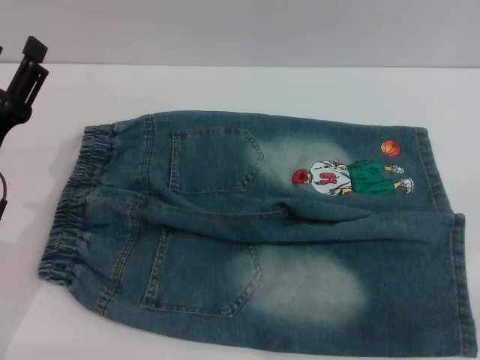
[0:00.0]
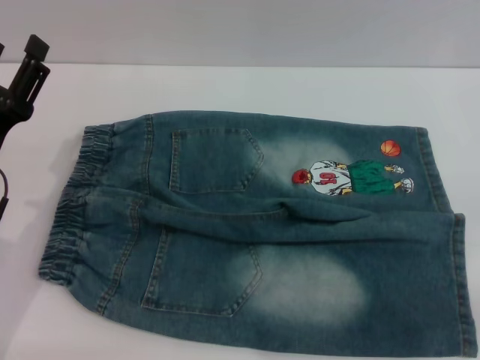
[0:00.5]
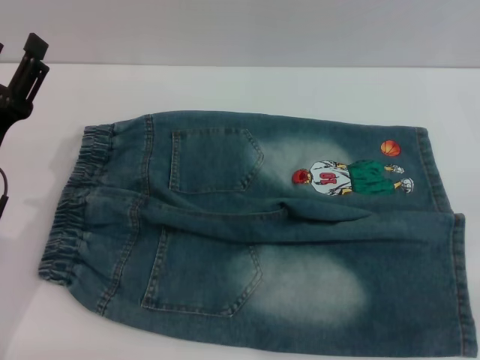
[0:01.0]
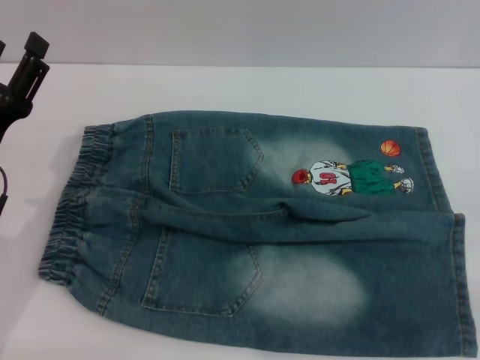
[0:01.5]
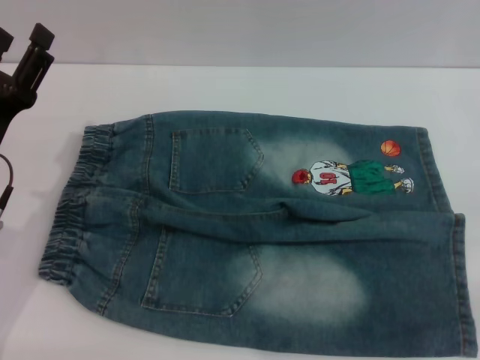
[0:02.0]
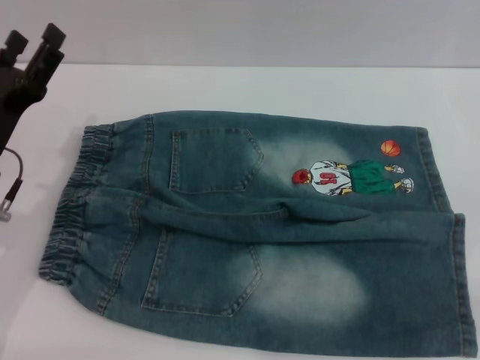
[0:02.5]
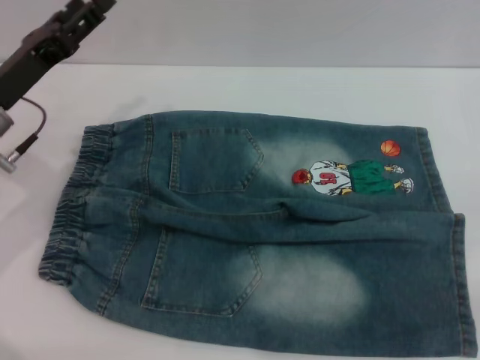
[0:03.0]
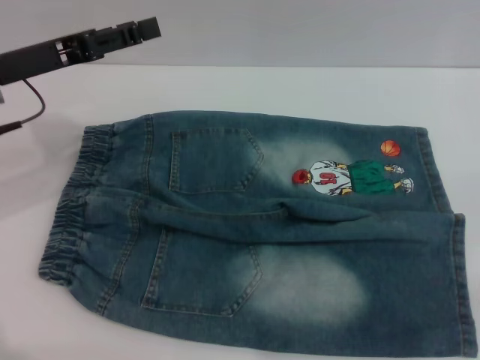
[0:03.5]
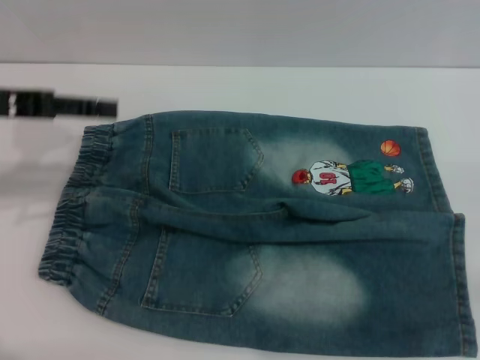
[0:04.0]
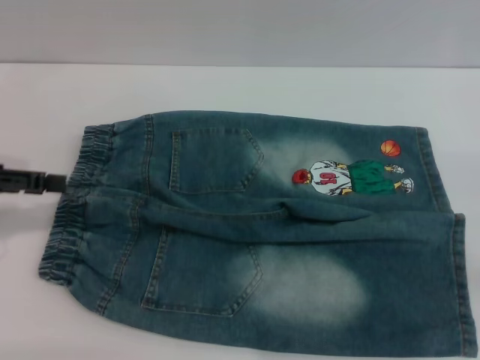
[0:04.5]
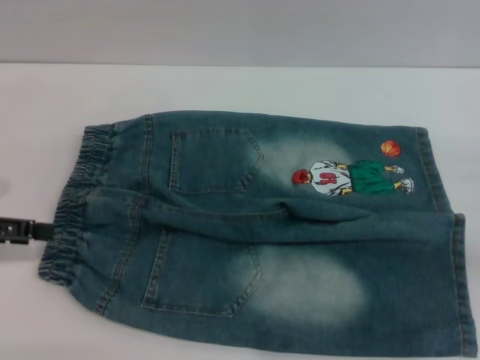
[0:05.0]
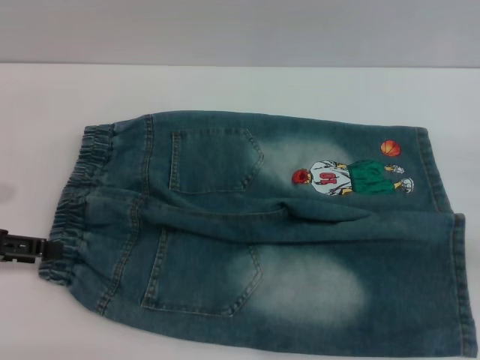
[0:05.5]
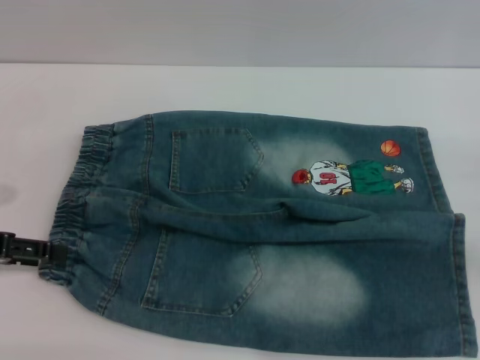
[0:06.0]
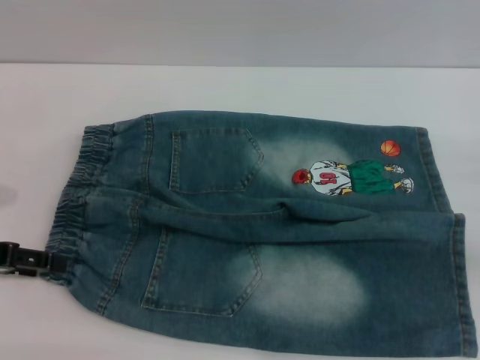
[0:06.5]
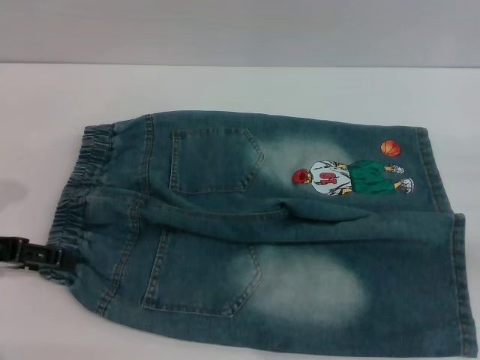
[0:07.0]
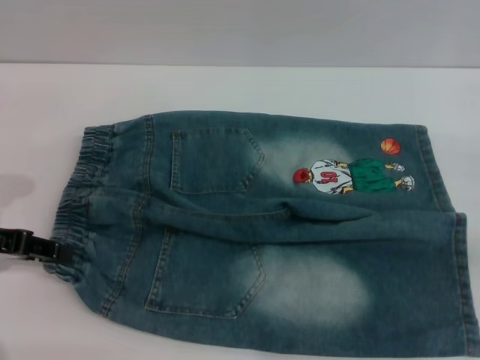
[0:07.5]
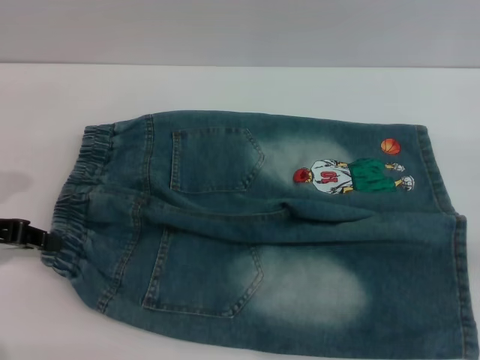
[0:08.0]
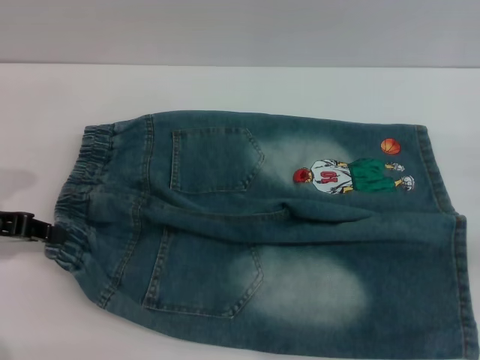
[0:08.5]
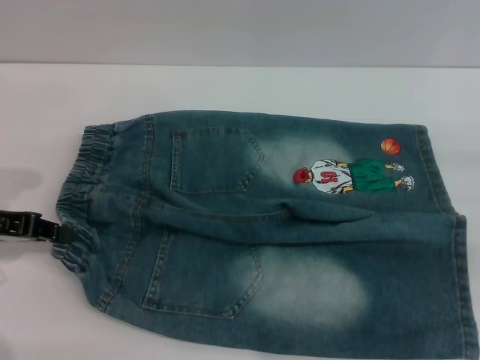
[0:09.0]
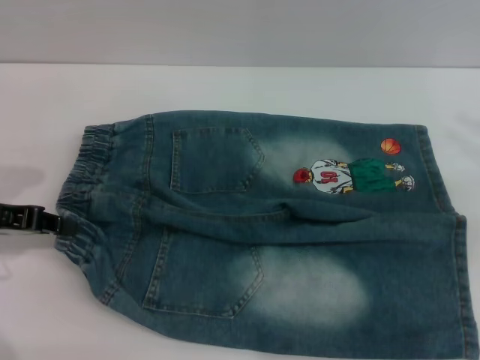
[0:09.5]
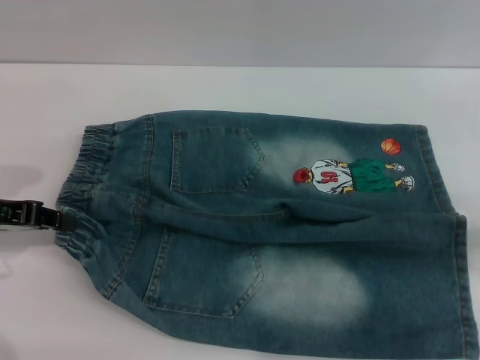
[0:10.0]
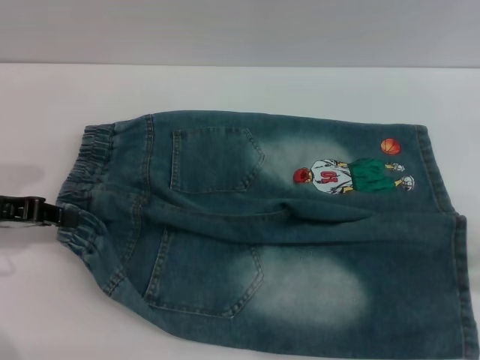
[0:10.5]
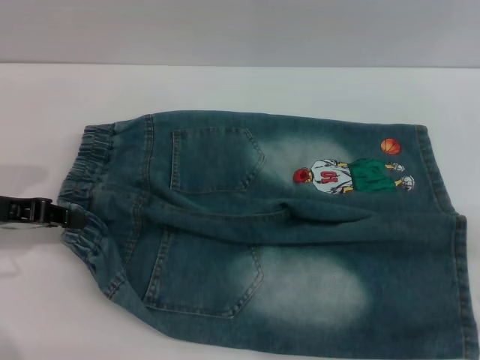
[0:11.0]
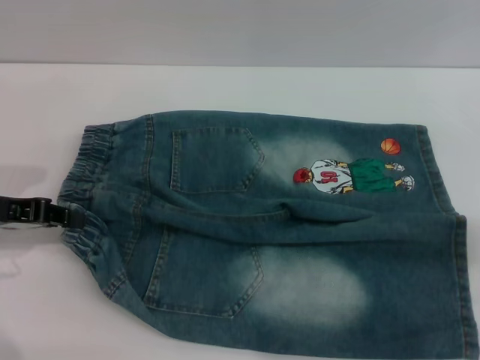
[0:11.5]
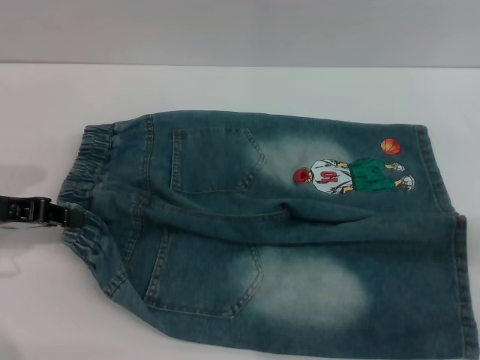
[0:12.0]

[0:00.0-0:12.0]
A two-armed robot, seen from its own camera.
0:00.0 to 0:02.0: The grippers make only small movements.
0:02.0 to 0:04.0: The left gripper travels upward and forward by some 15 cm.
0:04.0 to 0:06.0: The left gripper goes about 10 cm downward and backward.
0:06.0 to 0:08.0: The left gripper closes.

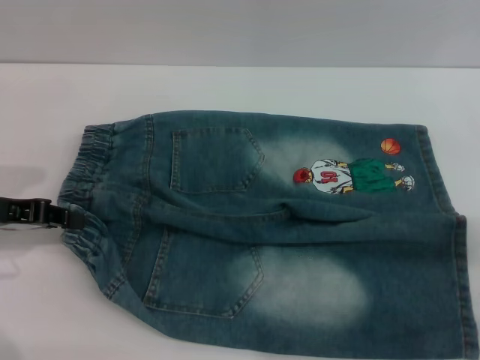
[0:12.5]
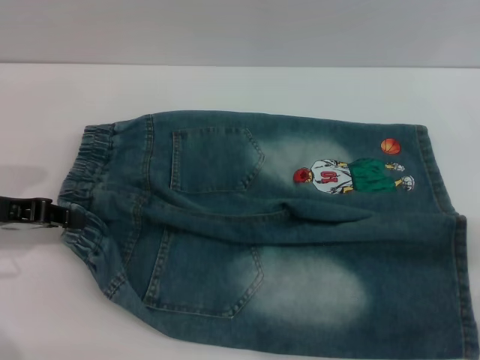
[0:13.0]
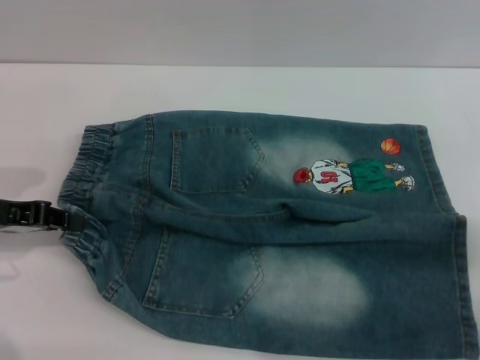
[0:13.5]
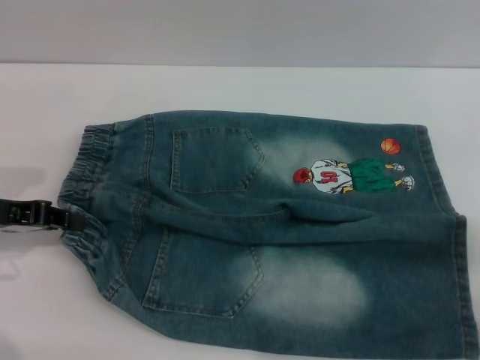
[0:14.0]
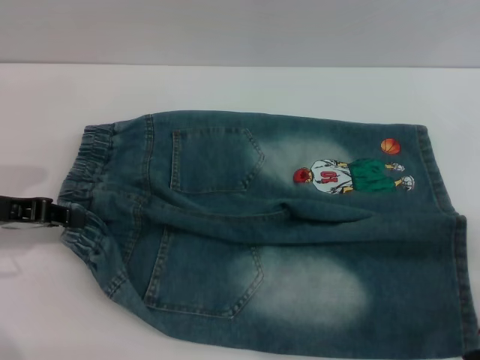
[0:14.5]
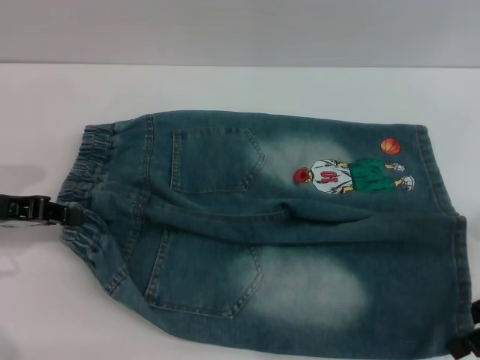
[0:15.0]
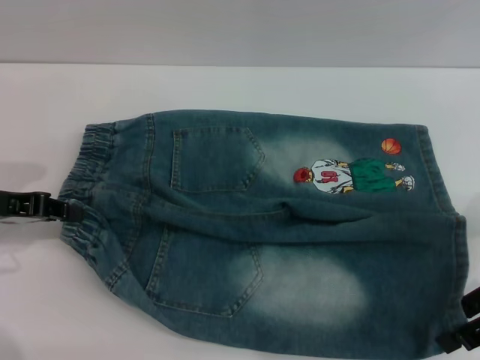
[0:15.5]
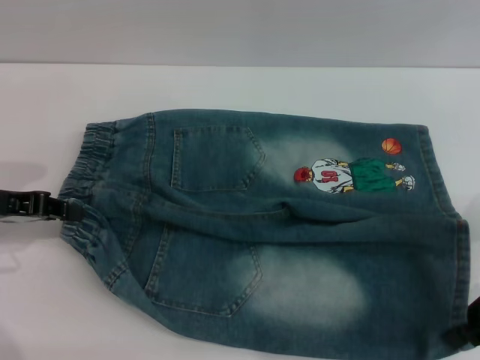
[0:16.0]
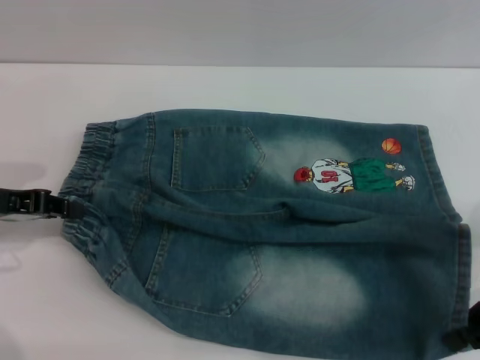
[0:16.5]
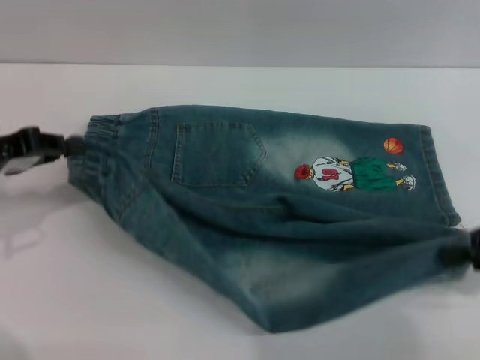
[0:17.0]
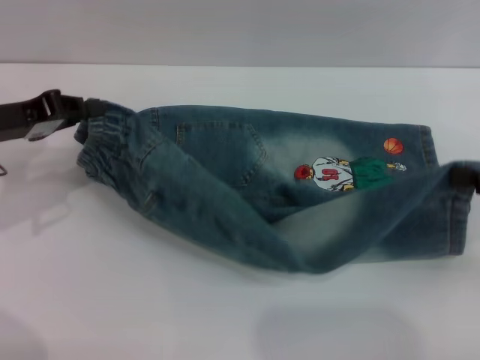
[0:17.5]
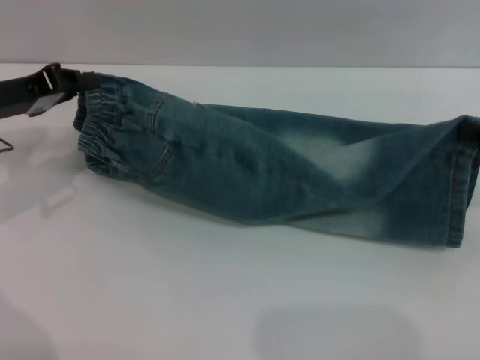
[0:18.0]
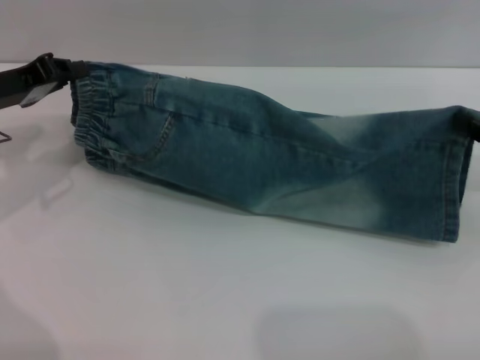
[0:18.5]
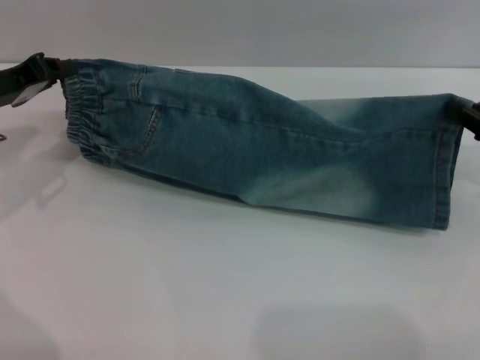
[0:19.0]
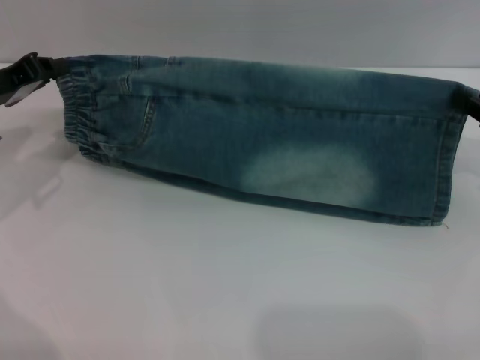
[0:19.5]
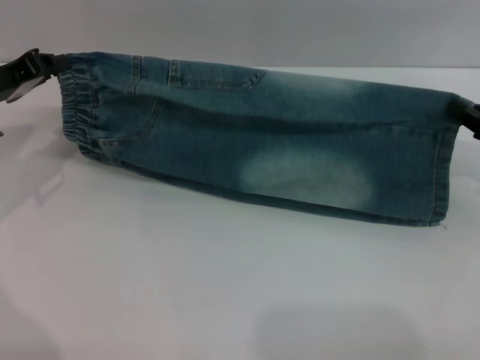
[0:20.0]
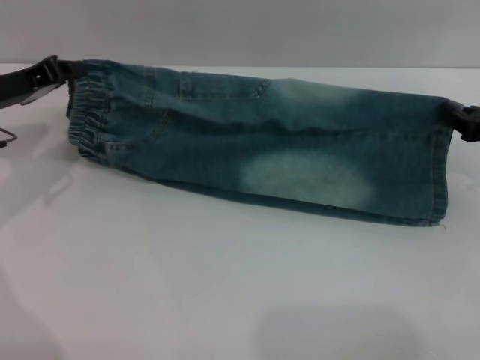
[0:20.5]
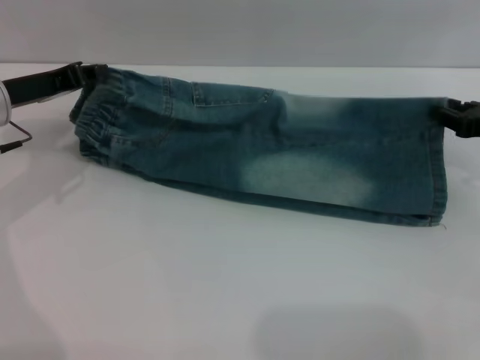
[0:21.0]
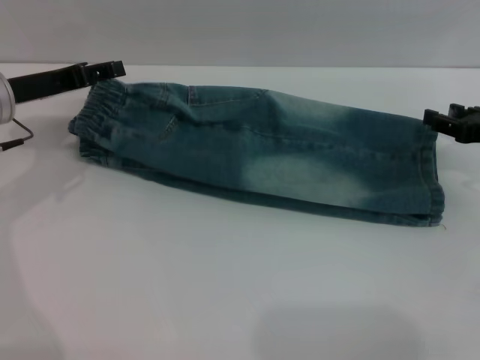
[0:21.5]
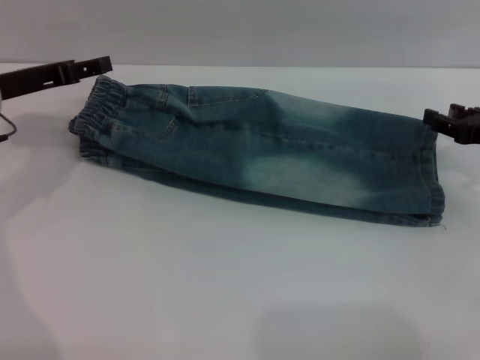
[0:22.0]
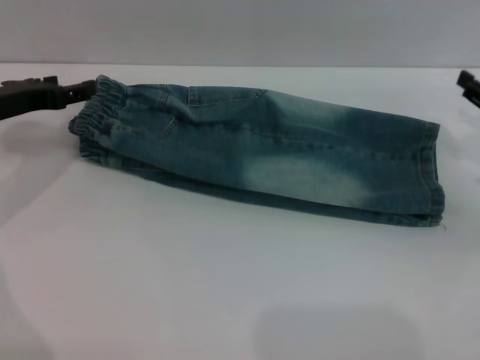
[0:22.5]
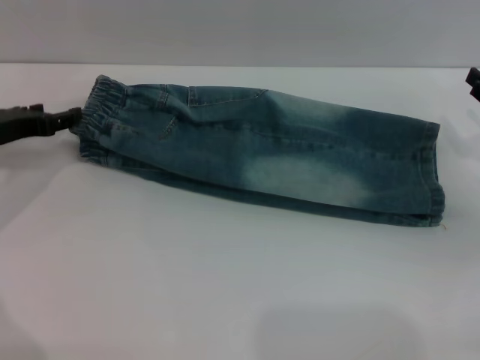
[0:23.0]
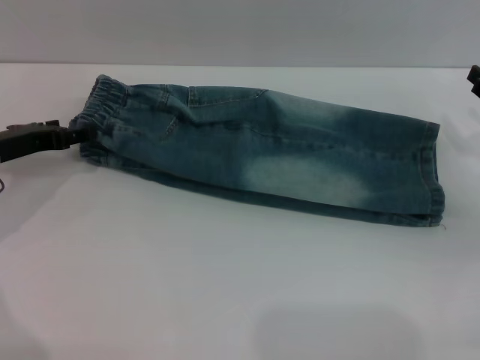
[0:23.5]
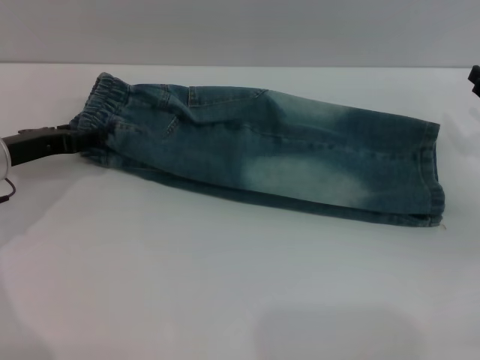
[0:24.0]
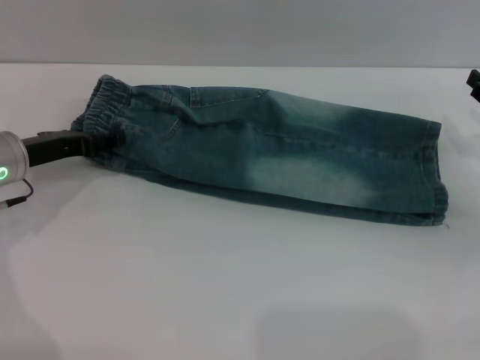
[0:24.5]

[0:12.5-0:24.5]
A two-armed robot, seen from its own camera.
Step, 0:12.5 to 0:21.0: Fold the bottom of the pants upward with both grippers.
0:14.5 to 0:16.5: The right gripper closes.
0:16.5 to 0:18.5: The right gripper moves roughly 5 cm, while the left gripper shifts roughly 5 cm forward.
0:18.5 to 0:20.5: The grippers make only small movements.
0:20.5 to 0:22.5: The right gripper opens its fingers; the left gripper opens its fingers.
0:22.5 to 0:24.5: The left gripper moves roughly 5 cm.

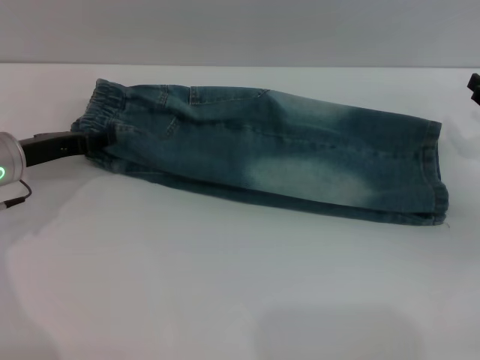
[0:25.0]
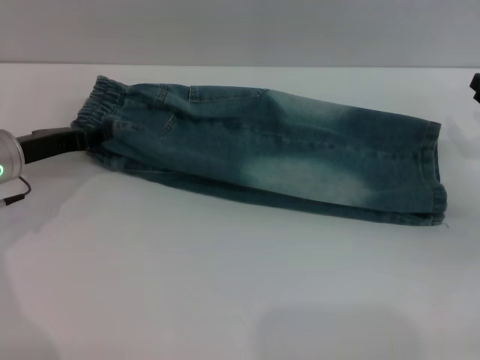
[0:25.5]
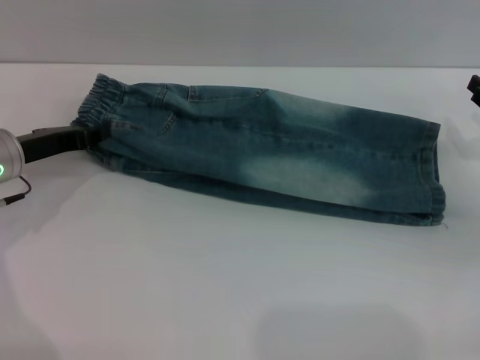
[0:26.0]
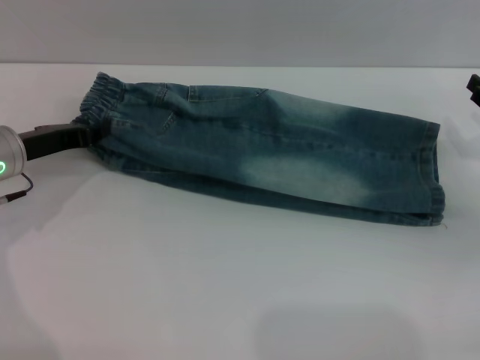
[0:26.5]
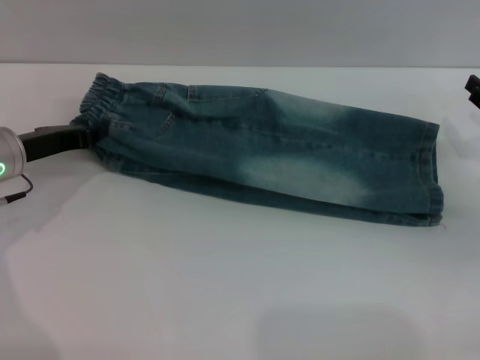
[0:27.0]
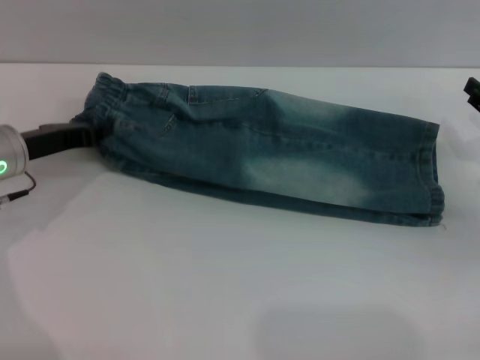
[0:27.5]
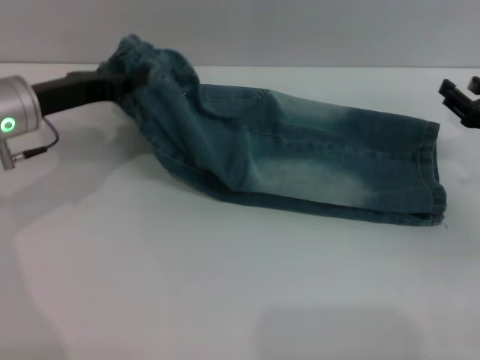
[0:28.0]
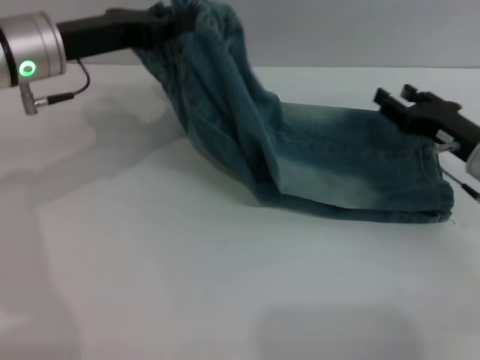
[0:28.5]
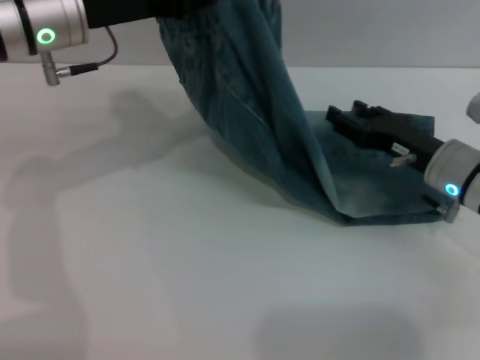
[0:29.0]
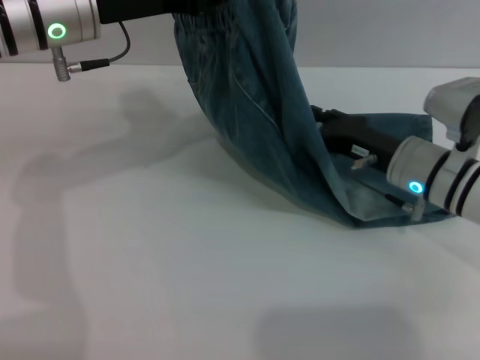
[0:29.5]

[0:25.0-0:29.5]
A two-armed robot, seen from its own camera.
0:25.0 to 0:27.0: The left gripper closes.
0:27.0 to 0:29.5: The right gripper travels to the left by some 15 cm, while the left gripper shifts some 15 cm upward and to the right.
